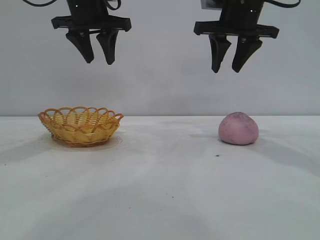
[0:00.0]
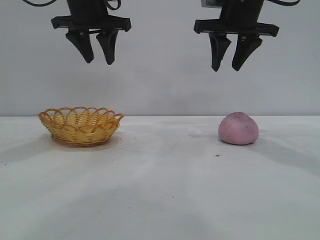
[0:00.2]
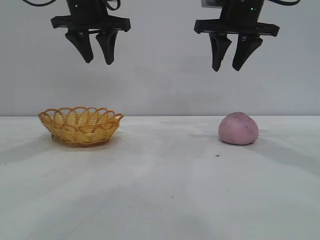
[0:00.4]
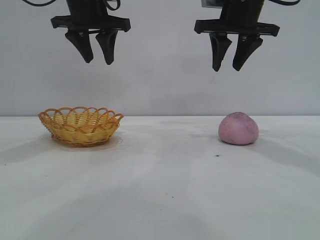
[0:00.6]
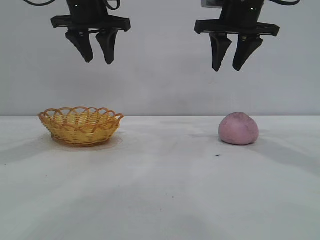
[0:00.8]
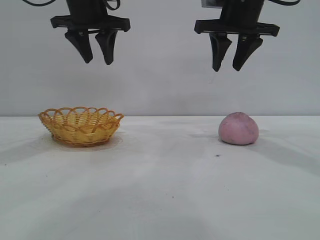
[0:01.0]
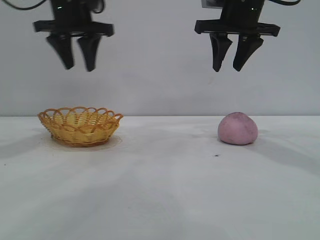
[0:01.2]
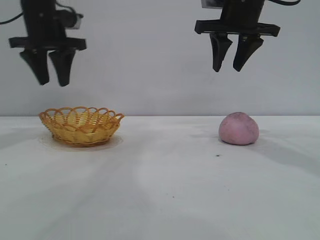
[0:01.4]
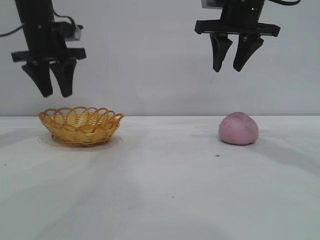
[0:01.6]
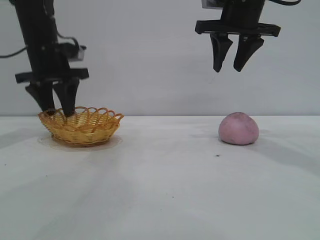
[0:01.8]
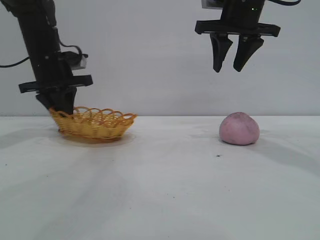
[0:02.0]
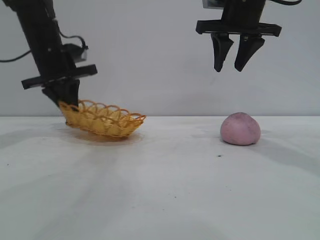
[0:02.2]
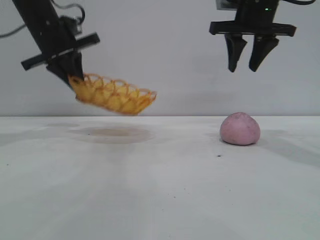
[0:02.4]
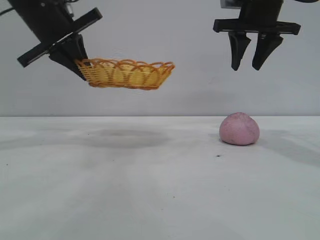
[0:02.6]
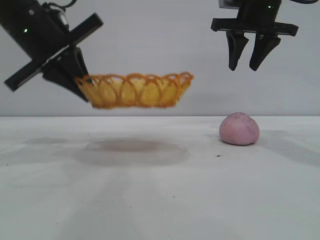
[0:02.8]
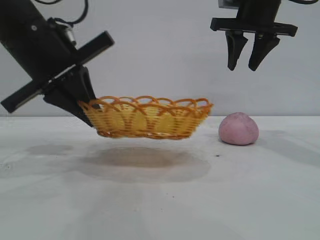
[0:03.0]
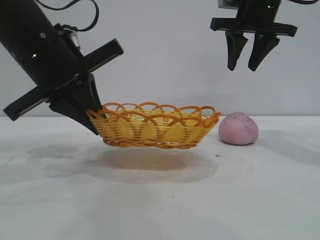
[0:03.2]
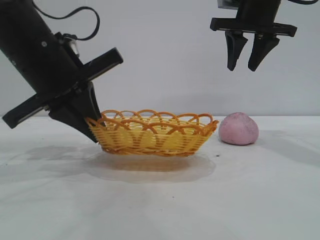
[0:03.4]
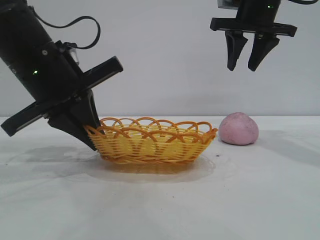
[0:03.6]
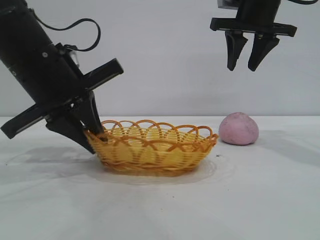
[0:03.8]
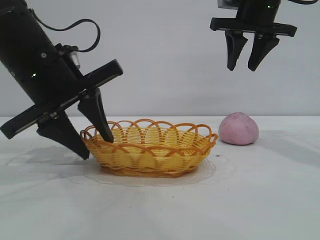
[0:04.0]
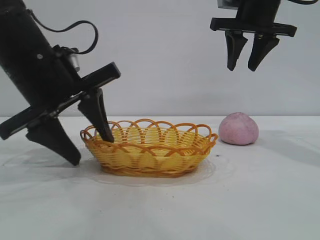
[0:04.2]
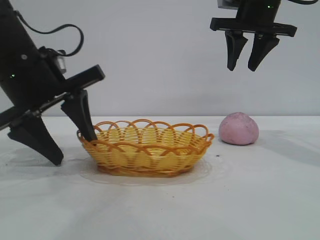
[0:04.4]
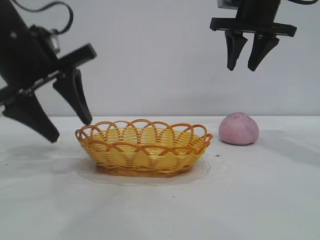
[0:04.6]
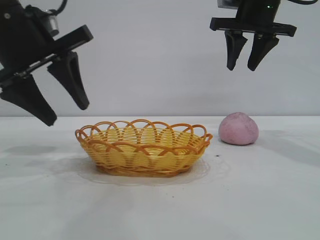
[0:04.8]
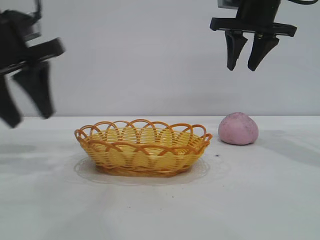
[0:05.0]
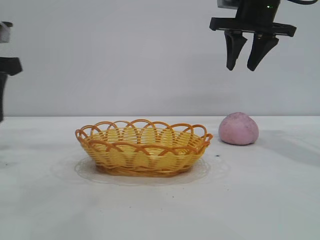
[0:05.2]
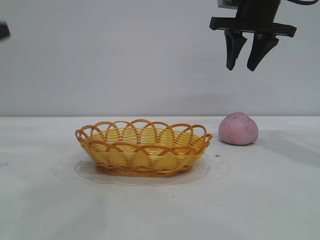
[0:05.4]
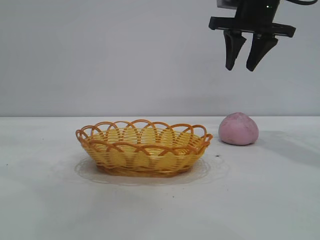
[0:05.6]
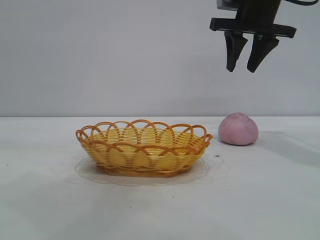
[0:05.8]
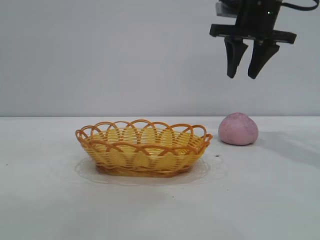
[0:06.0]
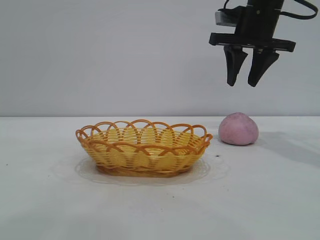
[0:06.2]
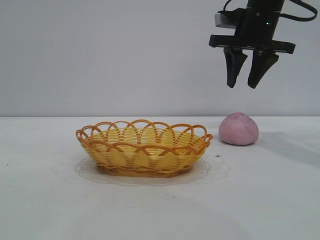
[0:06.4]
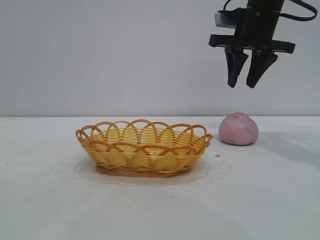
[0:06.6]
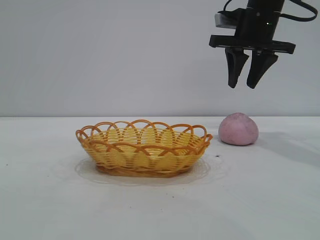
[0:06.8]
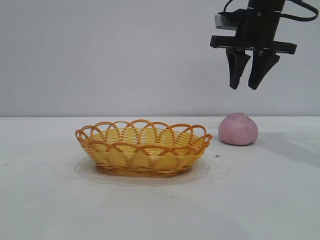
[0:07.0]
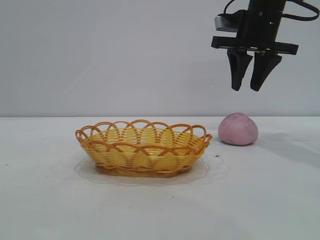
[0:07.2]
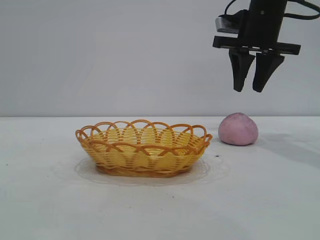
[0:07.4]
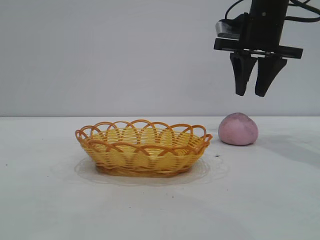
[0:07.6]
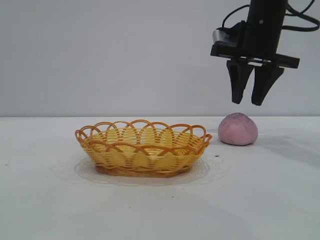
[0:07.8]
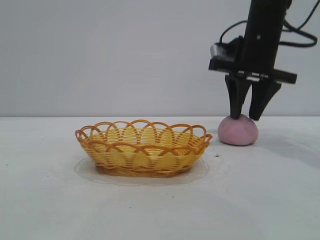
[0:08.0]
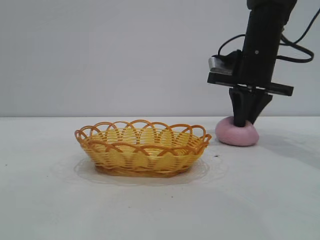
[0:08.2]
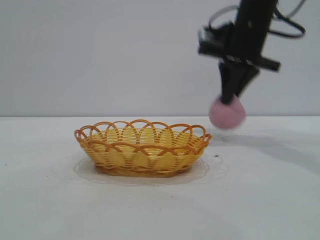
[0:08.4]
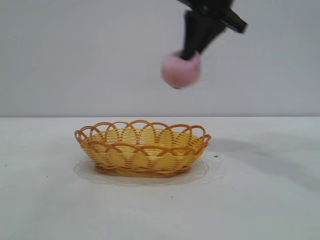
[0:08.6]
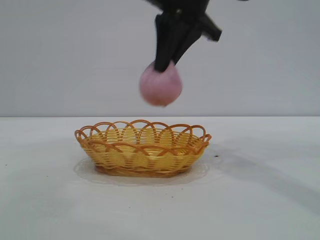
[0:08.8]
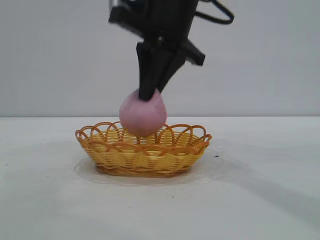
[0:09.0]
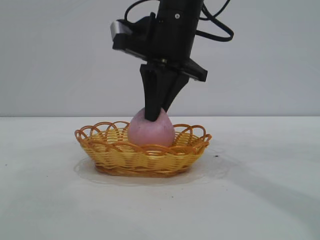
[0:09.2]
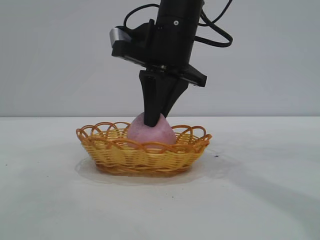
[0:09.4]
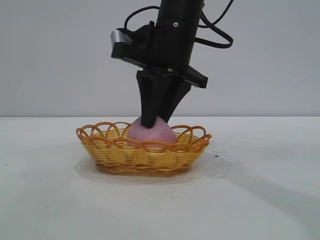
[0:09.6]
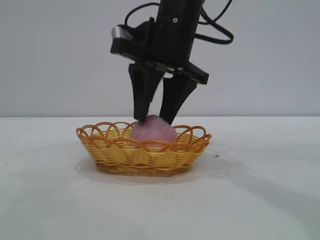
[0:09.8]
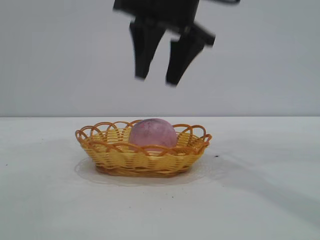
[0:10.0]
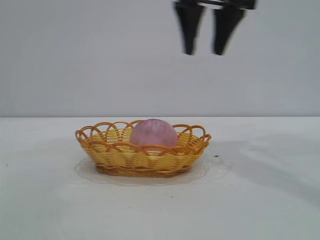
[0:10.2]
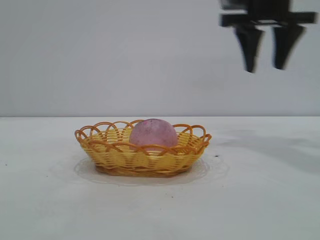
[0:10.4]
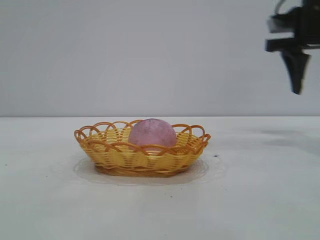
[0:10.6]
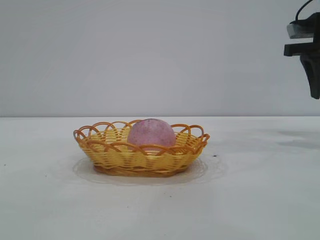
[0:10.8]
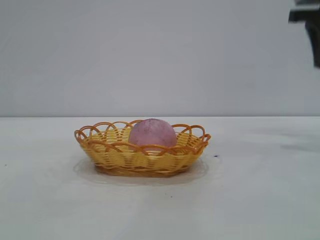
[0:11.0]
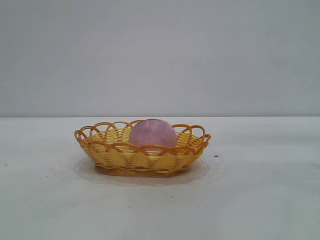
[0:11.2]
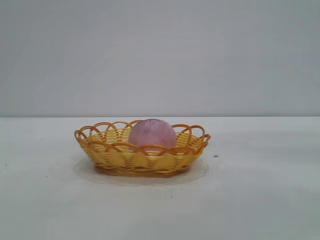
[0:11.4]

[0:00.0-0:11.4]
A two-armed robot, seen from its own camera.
Task of the whole recording: pick up the peach and put it into the basket.
Step, 0:00.0 to 0:04.8: Move the basket to the center of view.
Step, 0:05.0 to 0:08.2: Pick up the peach.
Step, 0:08.6 to 0:09.8: place the peach into the basket.

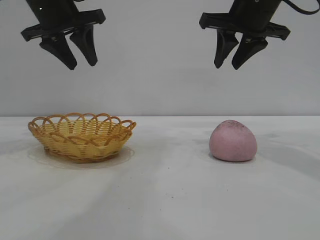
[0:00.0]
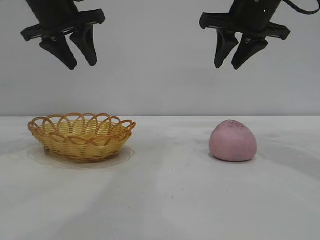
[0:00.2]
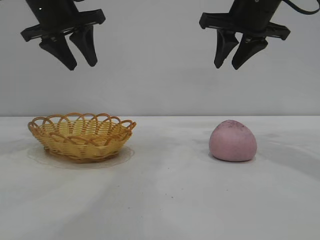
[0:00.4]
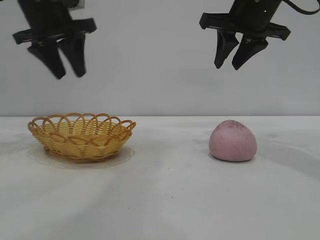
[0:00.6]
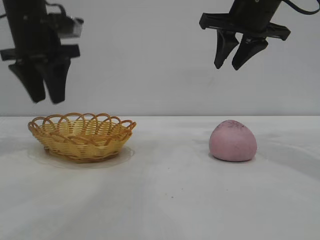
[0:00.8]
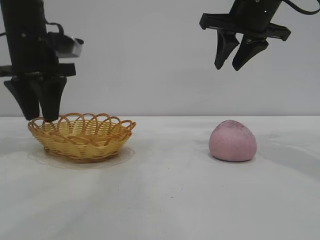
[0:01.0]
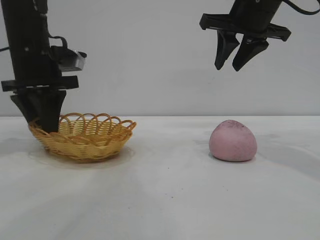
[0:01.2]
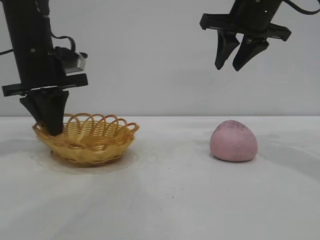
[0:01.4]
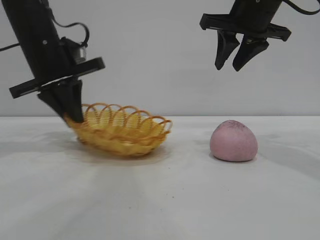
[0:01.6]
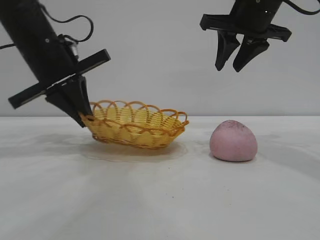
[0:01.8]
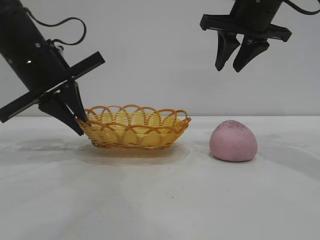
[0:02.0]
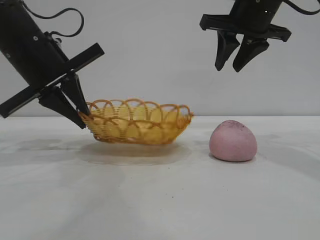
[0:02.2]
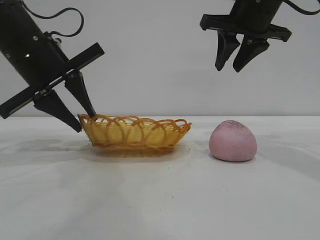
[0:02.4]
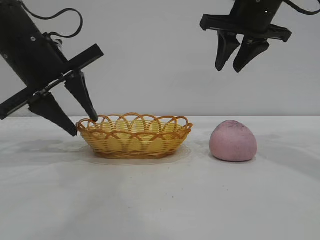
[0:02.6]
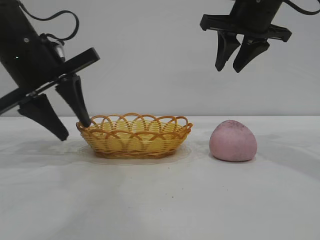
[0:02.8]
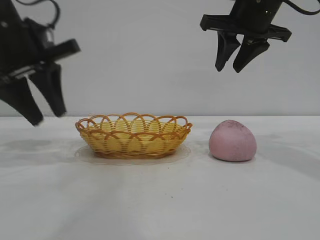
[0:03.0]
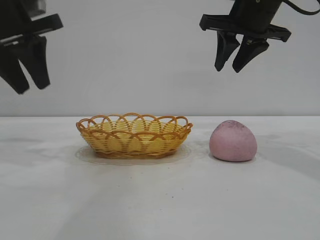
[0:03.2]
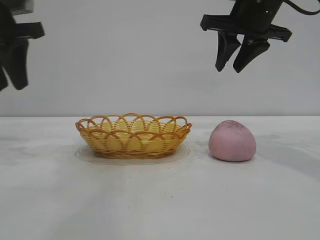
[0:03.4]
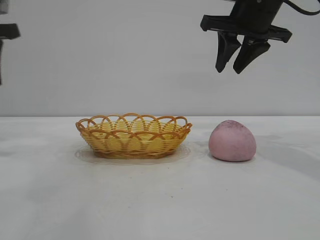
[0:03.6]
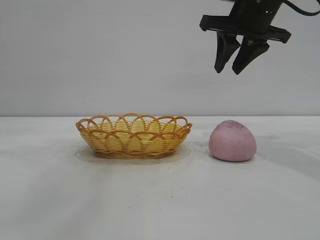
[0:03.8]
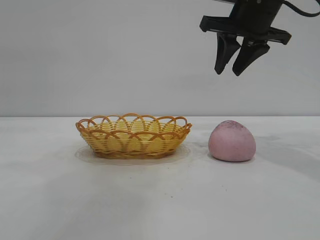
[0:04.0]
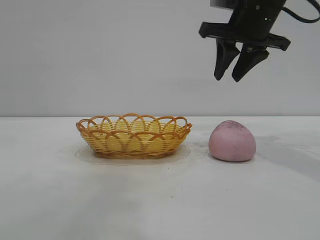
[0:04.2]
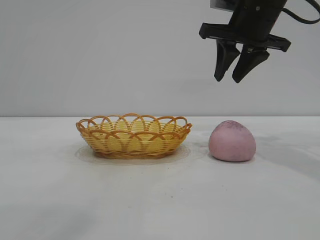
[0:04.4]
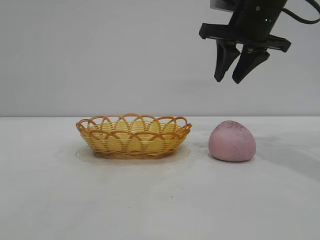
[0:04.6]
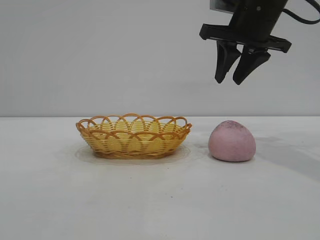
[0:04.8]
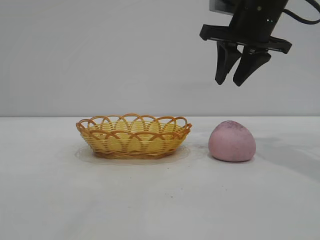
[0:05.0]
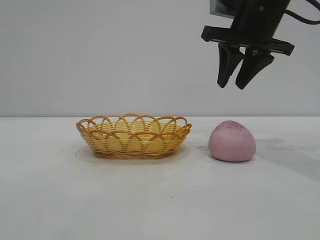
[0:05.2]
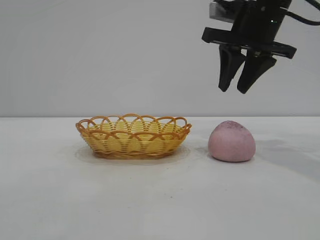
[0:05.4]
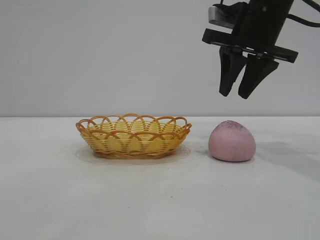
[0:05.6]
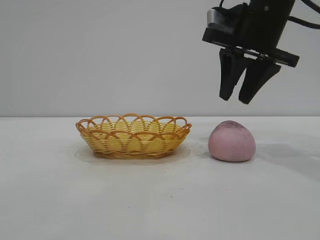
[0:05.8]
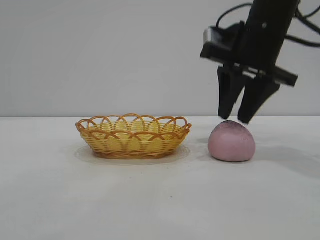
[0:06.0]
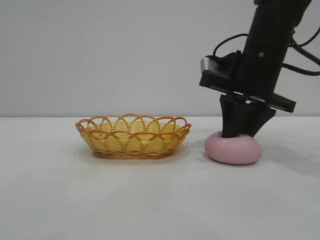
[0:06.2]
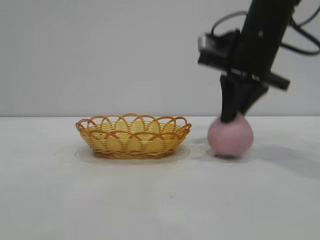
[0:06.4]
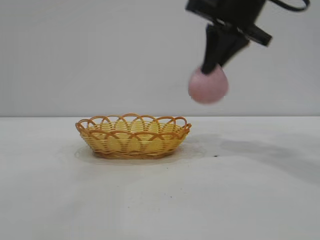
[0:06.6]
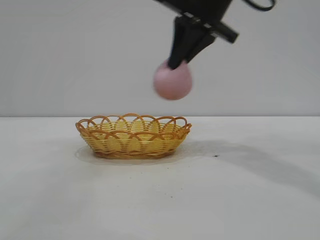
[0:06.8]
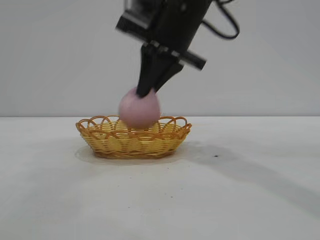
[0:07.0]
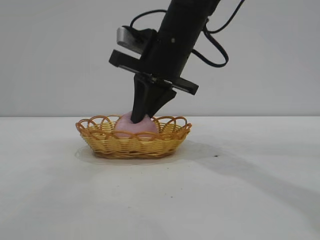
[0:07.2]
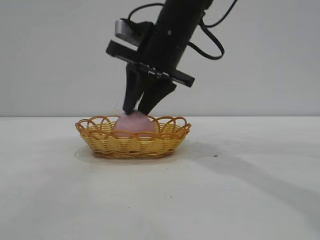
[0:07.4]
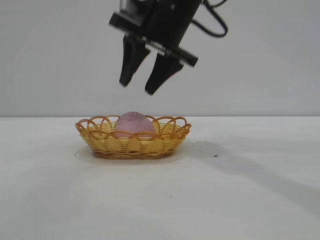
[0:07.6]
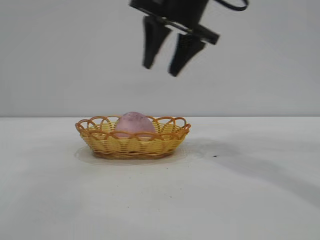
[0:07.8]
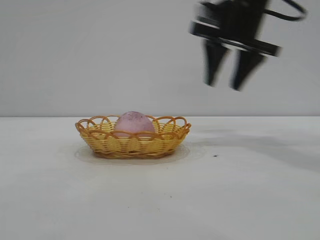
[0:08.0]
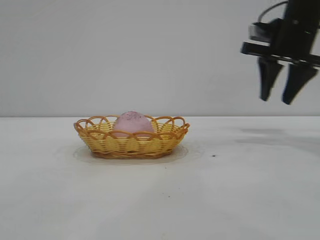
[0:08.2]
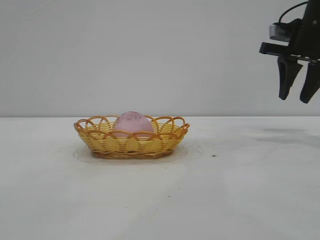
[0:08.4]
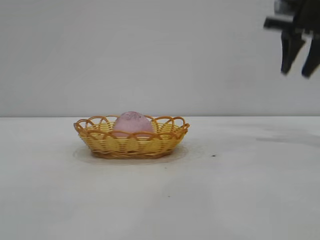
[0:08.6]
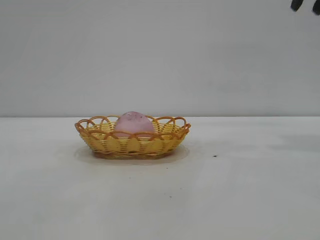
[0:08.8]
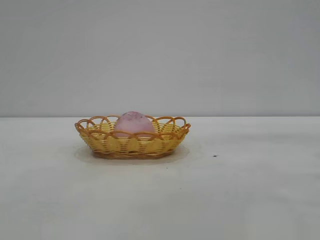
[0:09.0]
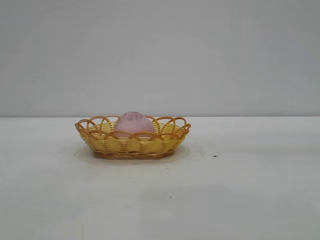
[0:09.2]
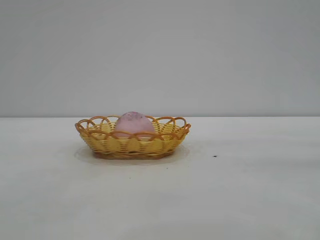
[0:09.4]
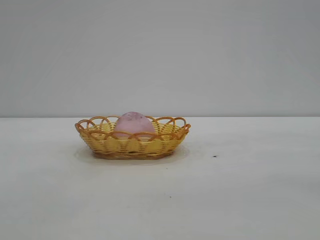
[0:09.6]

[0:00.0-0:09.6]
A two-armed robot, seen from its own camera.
Task of the whole recording: pick up the peach and put it into the basket.
Step, 0:00.0 to 0:03.0: Move the basket to the center of view.
Step, 0:03.2 to 0:06.4: Pick up the peach.
Step, 0:06.6 to 0:07.4: place the peach into the basket.
